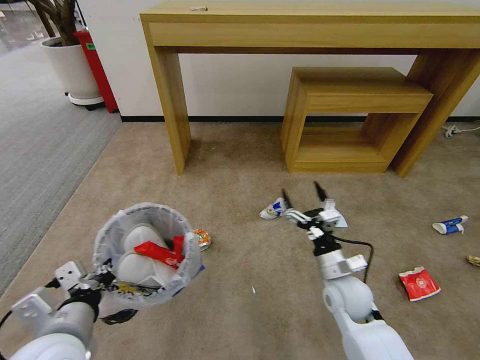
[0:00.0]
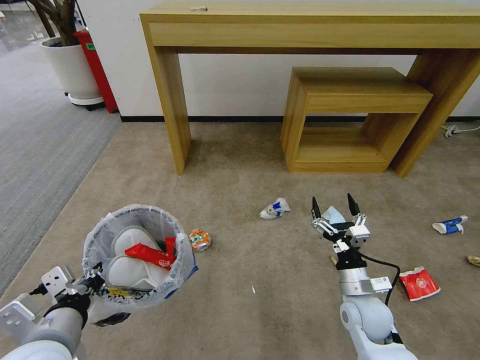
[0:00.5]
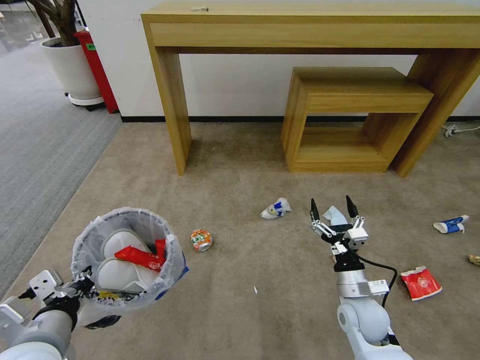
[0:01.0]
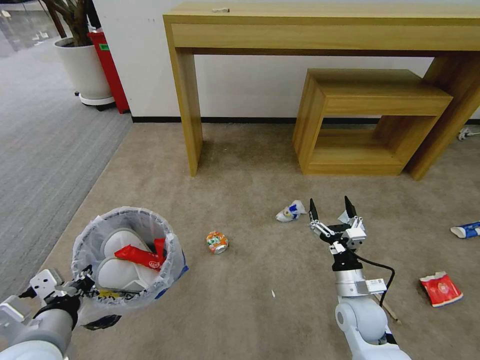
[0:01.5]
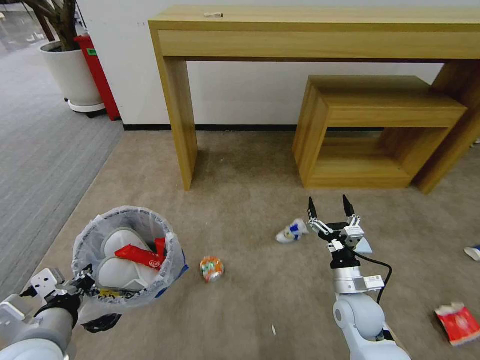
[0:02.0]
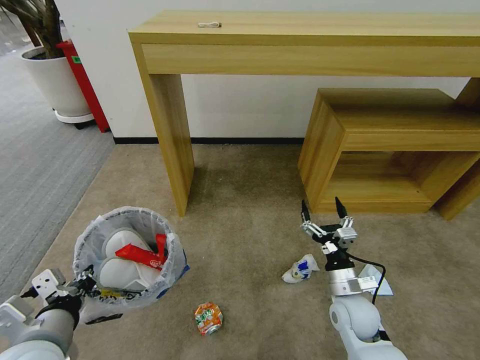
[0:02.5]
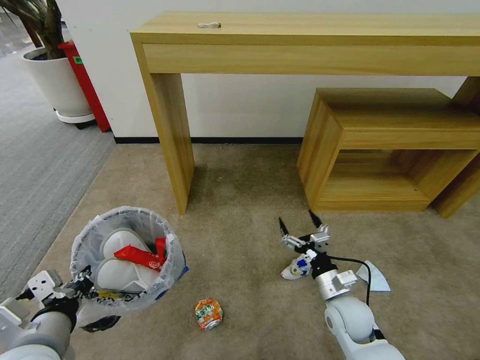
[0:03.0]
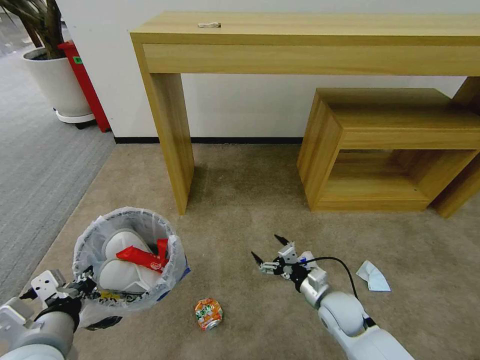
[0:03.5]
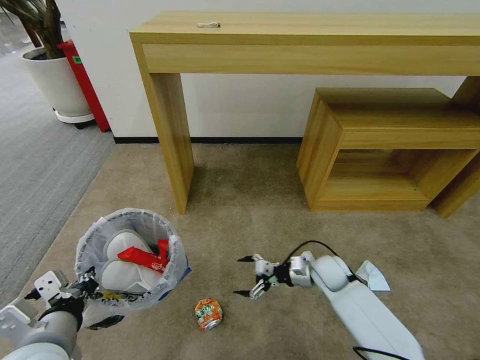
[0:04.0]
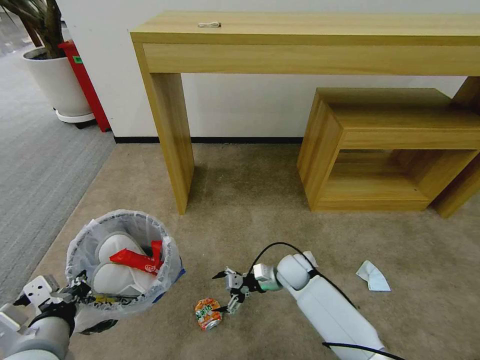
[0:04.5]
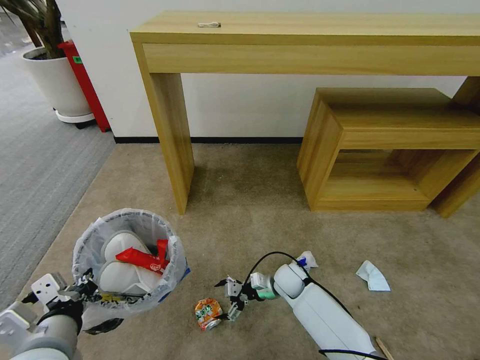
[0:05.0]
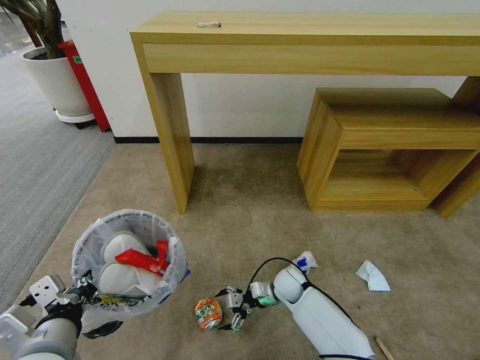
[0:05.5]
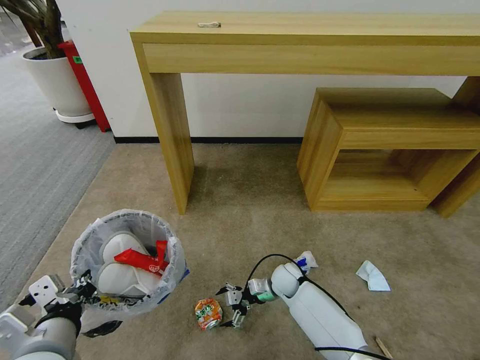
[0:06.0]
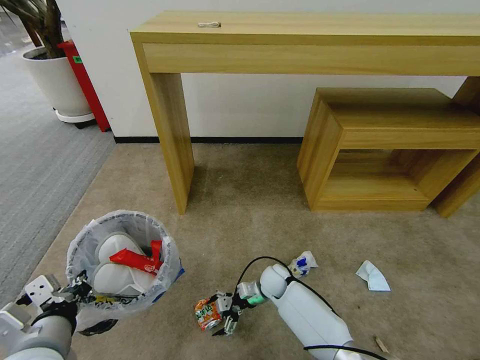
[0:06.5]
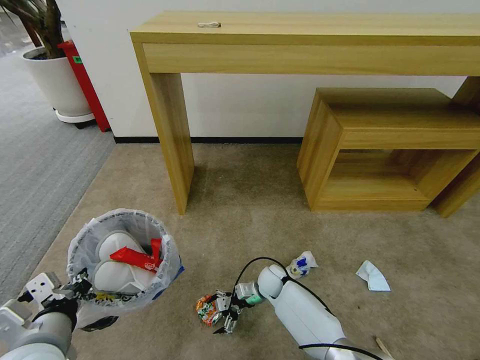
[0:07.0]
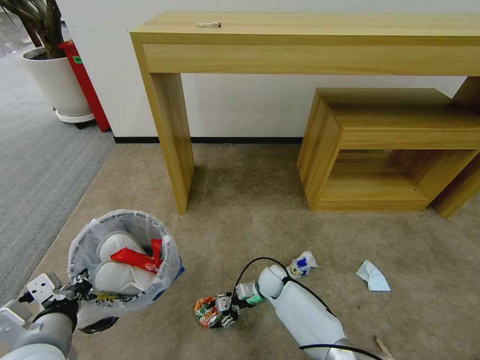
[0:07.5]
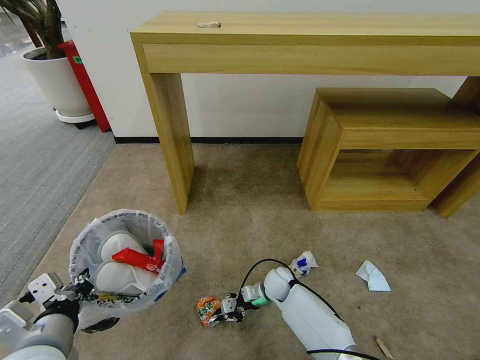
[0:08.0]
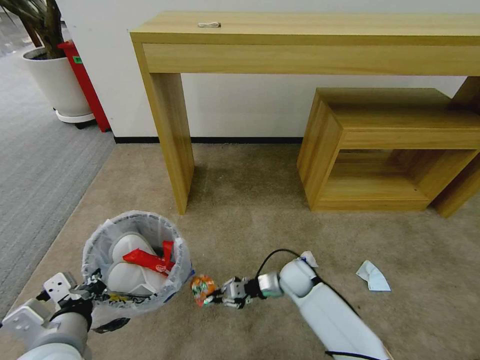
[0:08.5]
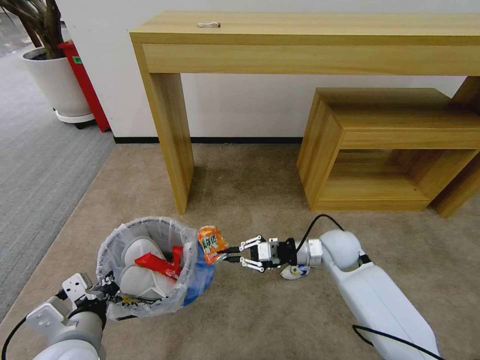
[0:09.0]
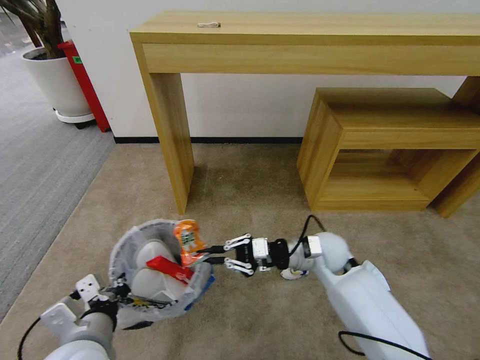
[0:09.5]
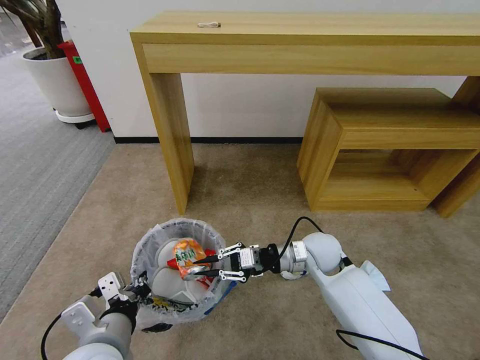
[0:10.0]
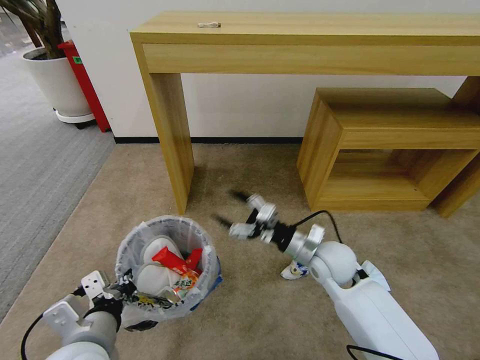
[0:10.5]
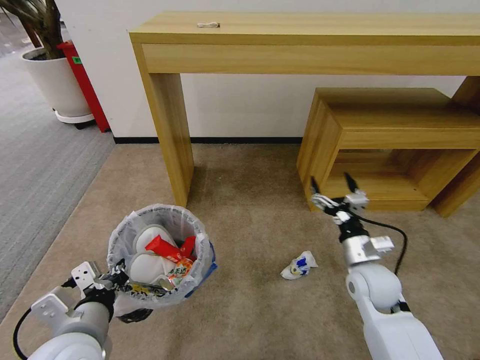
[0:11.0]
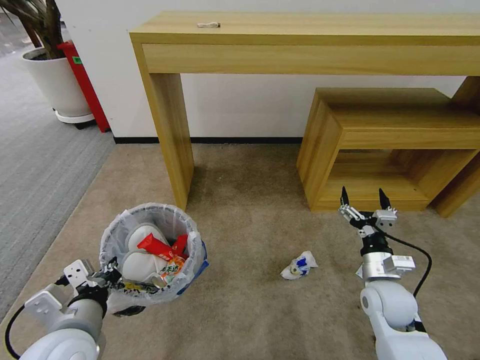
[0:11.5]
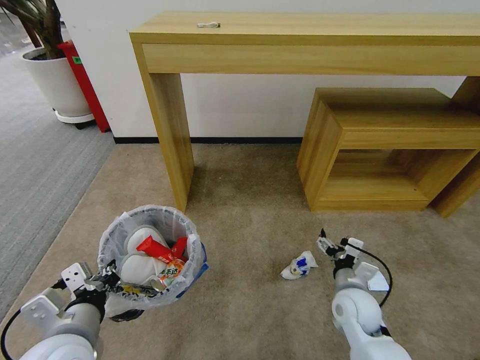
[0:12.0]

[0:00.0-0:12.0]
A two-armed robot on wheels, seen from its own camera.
Task of the whole recording: Pick up the trash bin and place the garbage on the floor into it.
0:02.0 to 0:04.0: The right gripper is displaced forward by about 10 cm.
0:04.0 to 0:06.0: The right gripper is displaced to the left and downward by some 15 cm.
0:06.0 to 0:08.0: The right gripper closes.
0:08.0 to 0:10.0: The left gripper goes some 10 cm to the right. The right gripper shifts approximately 20 cm upward.
0:10.0 to 0:12.0: The right gripper heads backward, to the right and downward, covering approximately 15 cm, and opens up.

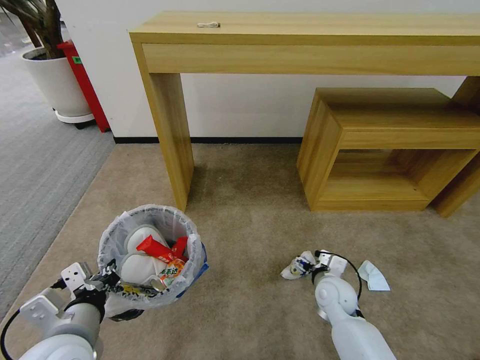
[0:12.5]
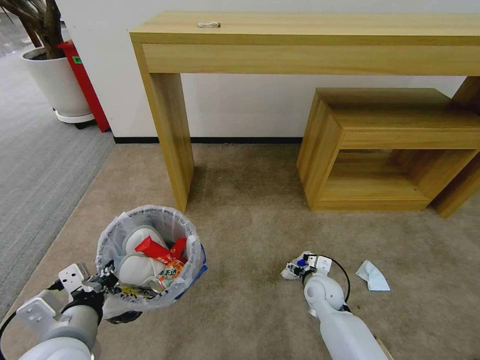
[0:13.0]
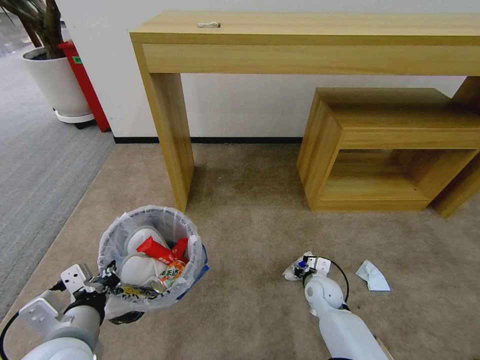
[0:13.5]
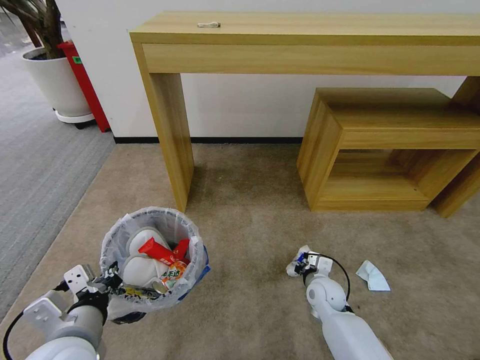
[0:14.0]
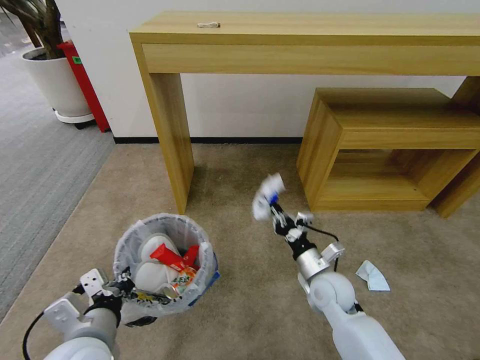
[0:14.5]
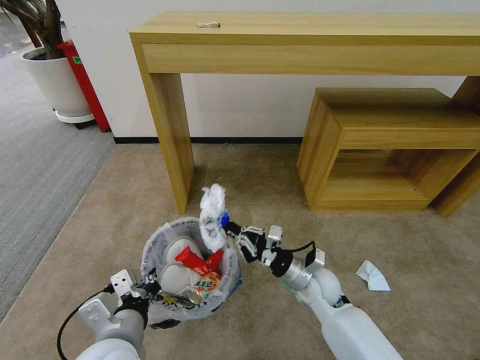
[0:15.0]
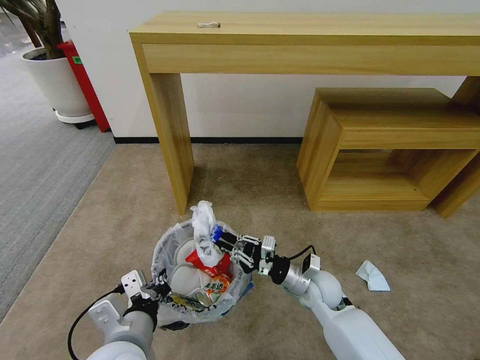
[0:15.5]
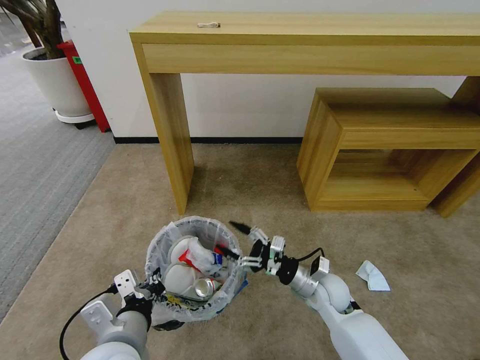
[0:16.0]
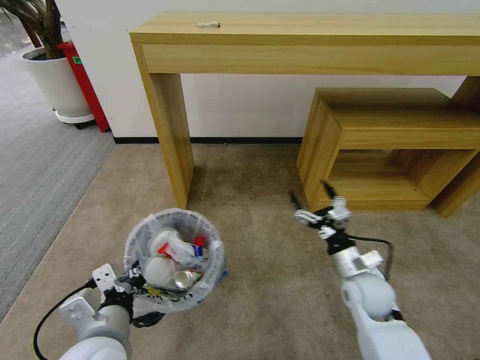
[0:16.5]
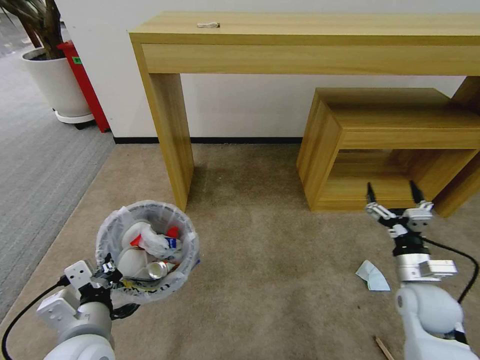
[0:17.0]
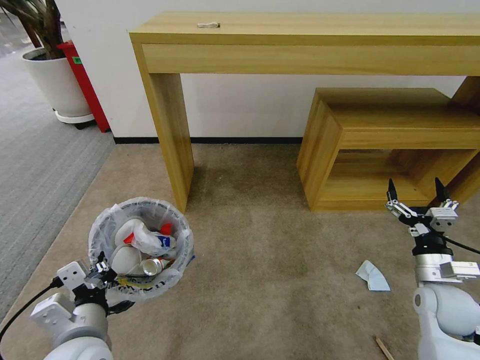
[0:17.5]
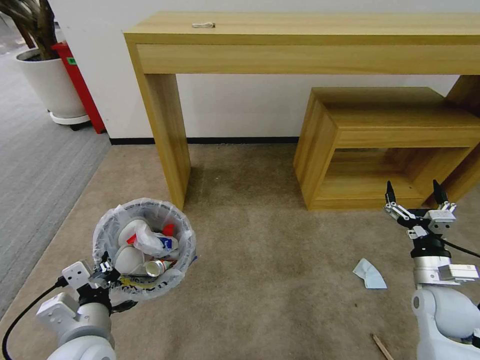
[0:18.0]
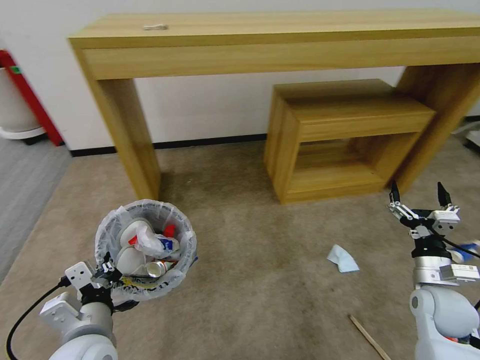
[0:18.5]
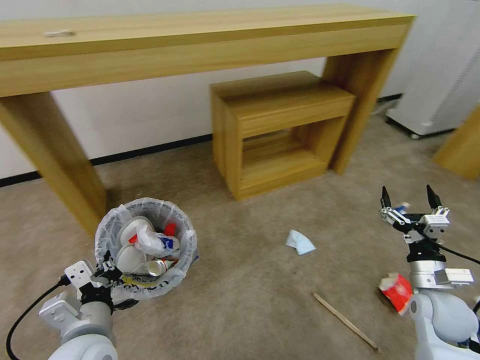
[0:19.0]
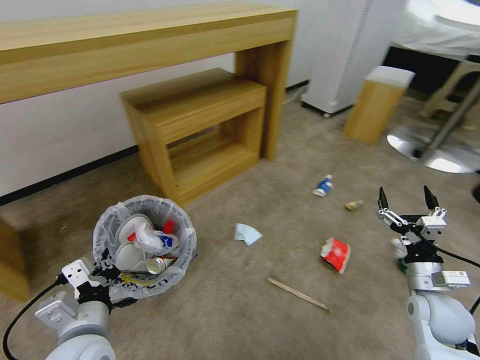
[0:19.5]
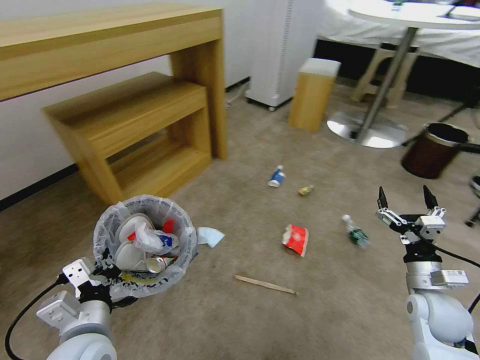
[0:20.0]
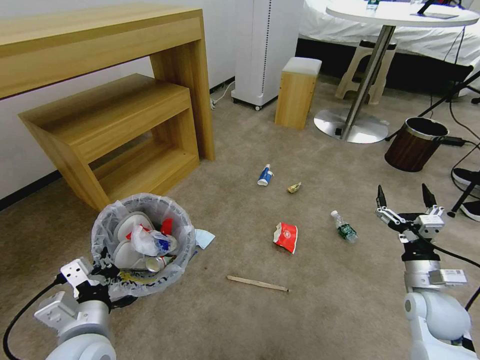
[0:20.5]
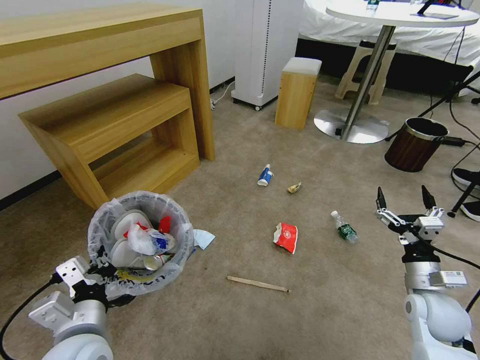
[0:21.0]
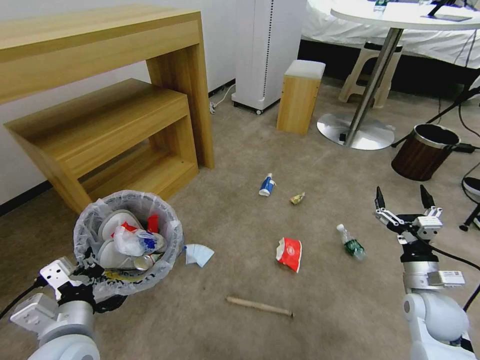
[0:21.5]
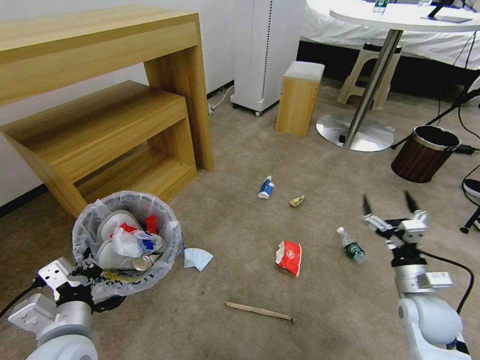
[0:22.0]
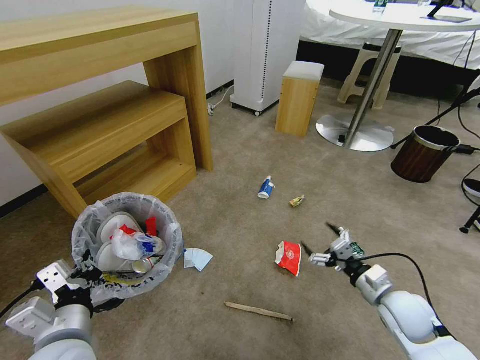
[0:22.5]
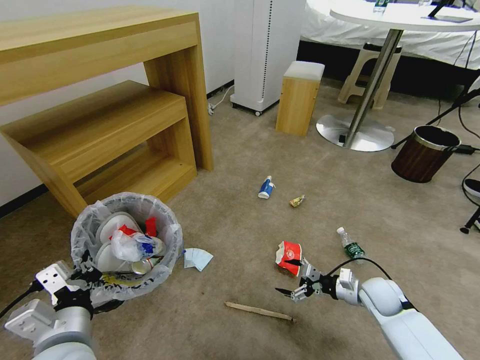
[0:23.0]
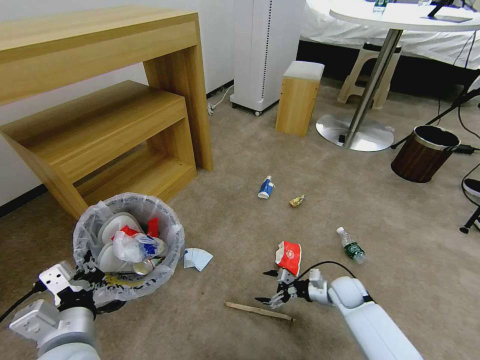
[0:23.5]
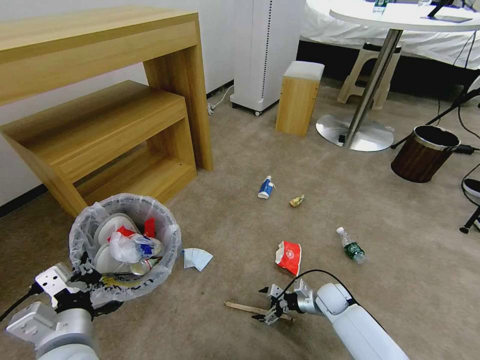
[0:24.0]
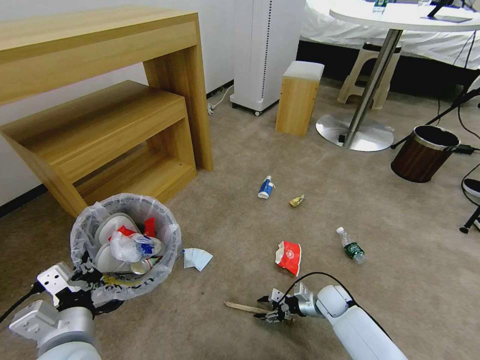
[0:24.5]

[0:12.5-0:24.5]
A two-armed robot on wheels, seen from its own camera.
Task of the whole recording: Pick up the trash bin and place the garbage on the floor into it.
0:12.5 to 0:14.5: The right gripper heads upward, covering approximately 5 cm, and closes its fingers.
0:14.5 to 0:16.5: The right gripper goes some 5 cm to the right, and opens its fingers.
0:16.5 to 0:18.5: The right gripper shifts about 15 cm to the right.
0:20.5 to 0:22.5: The right gripper changes place by some 5 cm.
0:22.5 to 0:24.5: The right gripper goes roughly 20 cm downward, forward and to the left, and closes up.

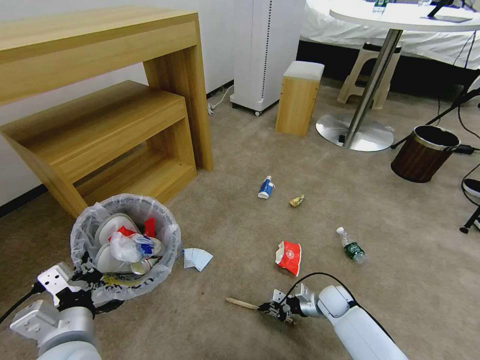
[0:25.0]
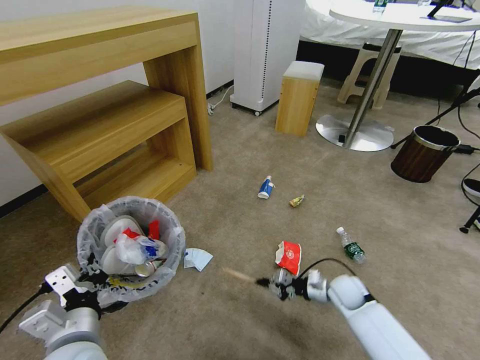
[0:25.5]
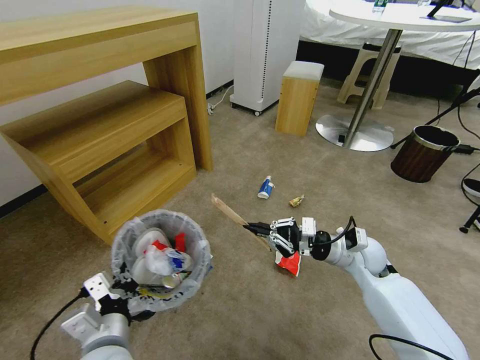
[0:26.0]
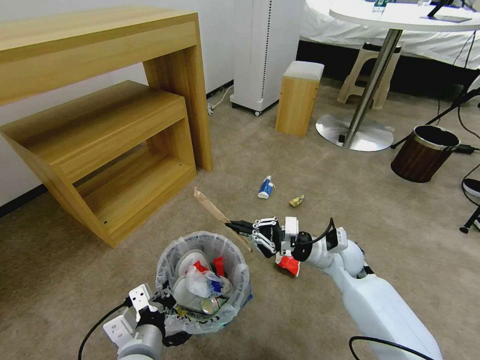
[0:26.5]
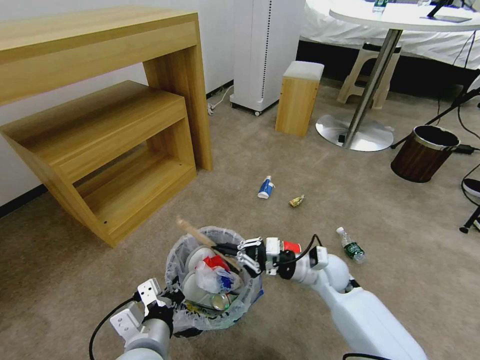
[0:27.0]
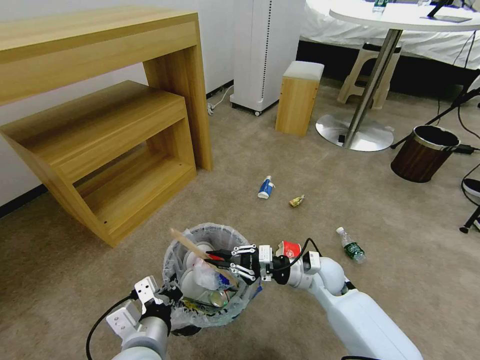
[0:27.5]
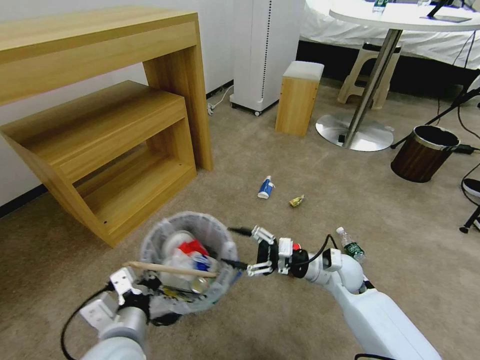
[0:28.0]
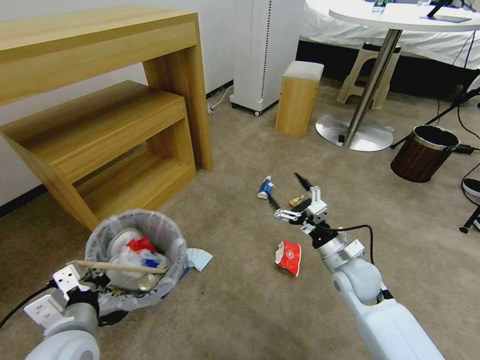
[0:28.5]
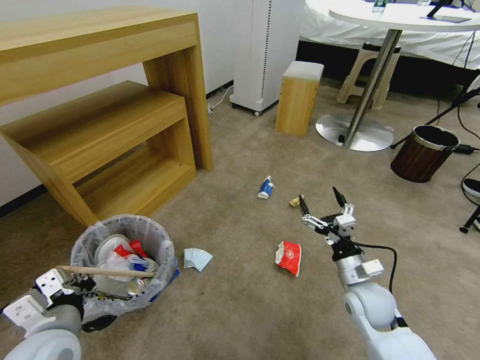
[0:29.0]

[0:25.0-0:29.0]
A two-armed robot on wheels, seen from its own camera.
Task of the whole recording: Pick up the trash bin and place the garbage on the floor into it.
0:25.0 to 0:27.0: The left gripper heads to the right, covering approximately 10 cm. Meanwhile the right gripper shifts some 20 cm upward.
0:27.0 to 0:29.0: The right gripper goes roughly 10 cm backward and to the right, and opens its fingers, while the left gripper shifts roughly 15 cm to the left.
